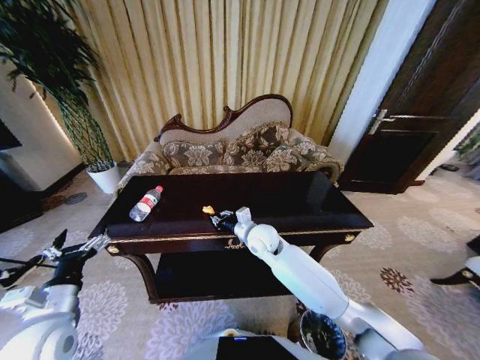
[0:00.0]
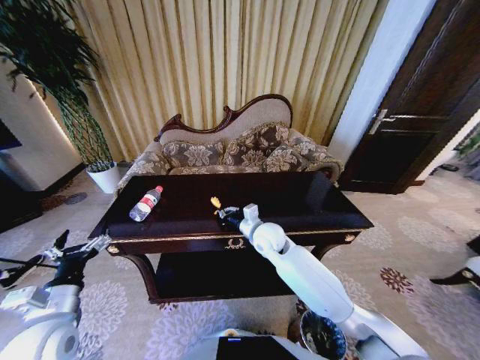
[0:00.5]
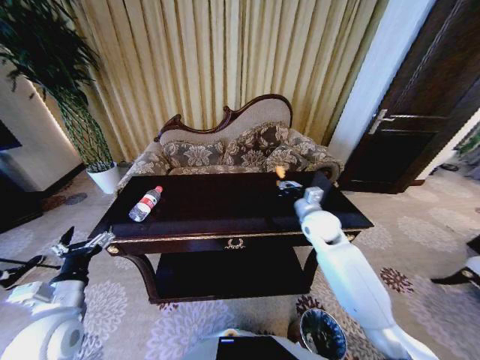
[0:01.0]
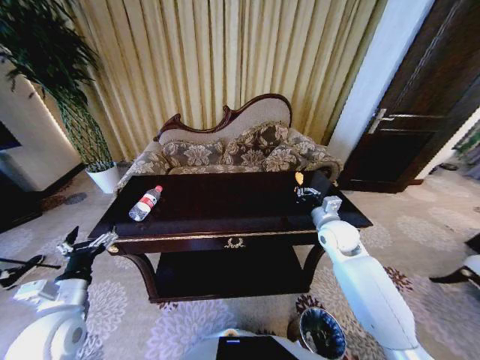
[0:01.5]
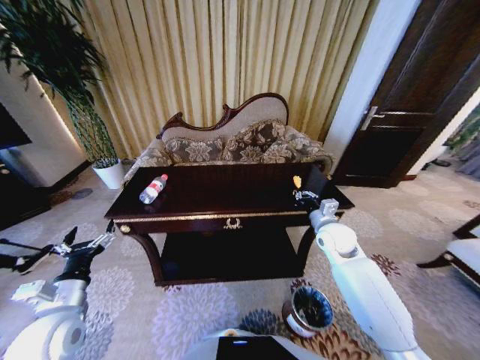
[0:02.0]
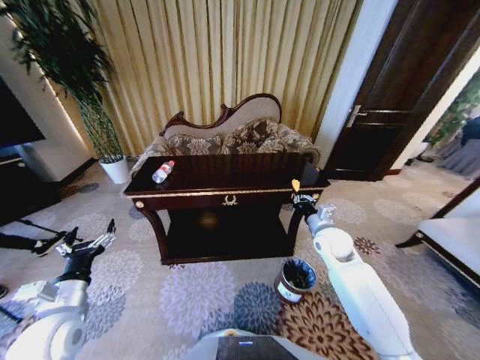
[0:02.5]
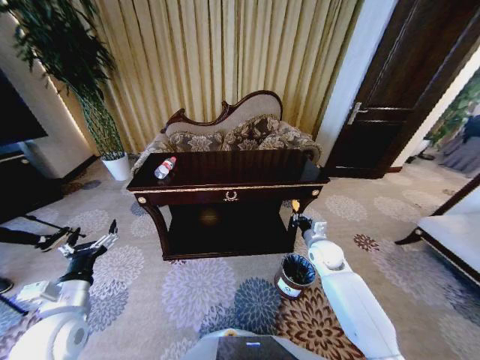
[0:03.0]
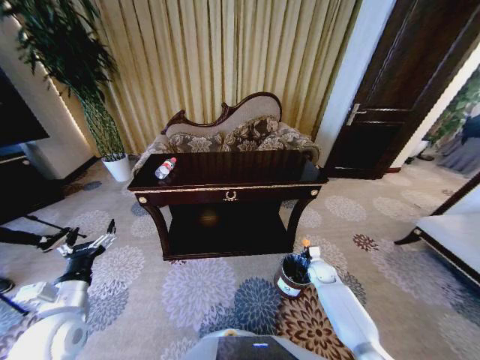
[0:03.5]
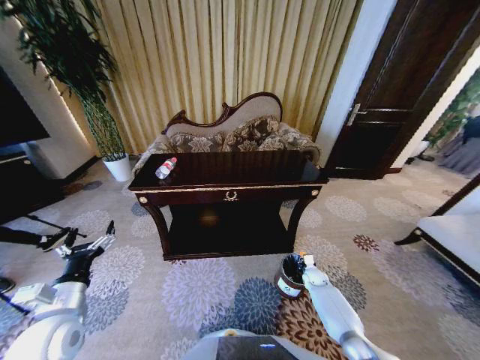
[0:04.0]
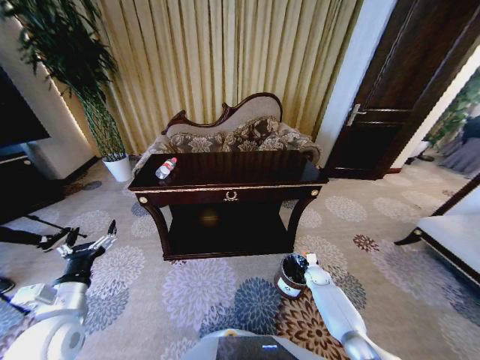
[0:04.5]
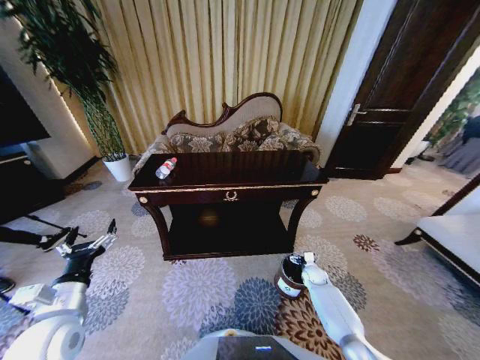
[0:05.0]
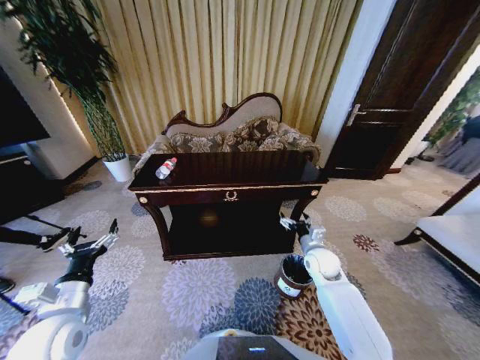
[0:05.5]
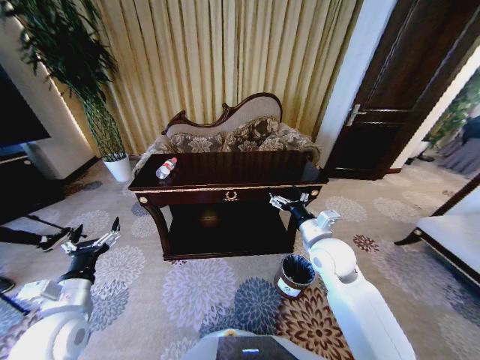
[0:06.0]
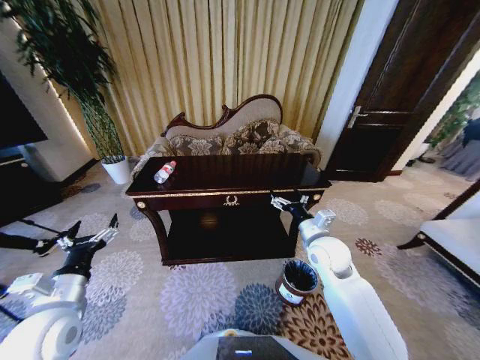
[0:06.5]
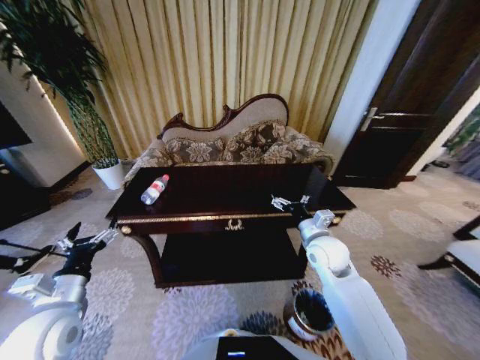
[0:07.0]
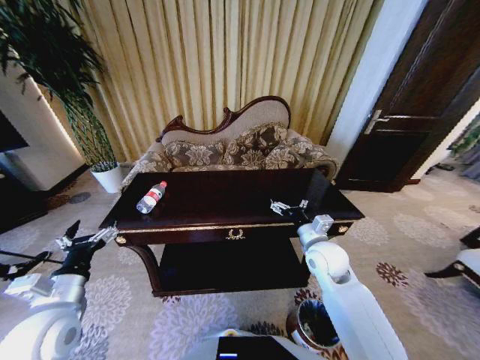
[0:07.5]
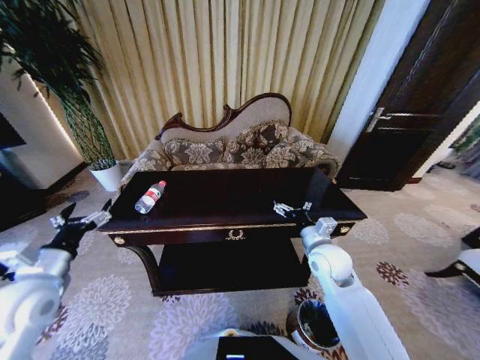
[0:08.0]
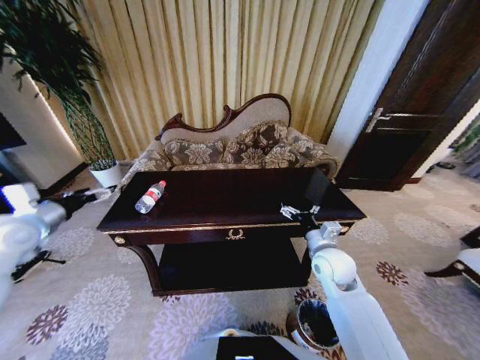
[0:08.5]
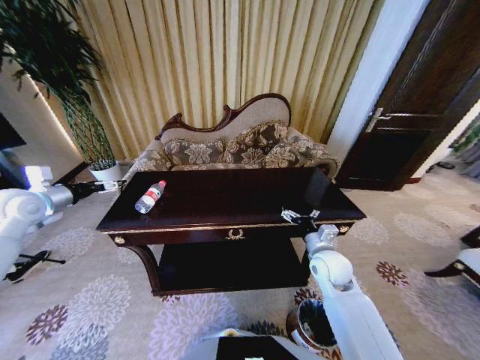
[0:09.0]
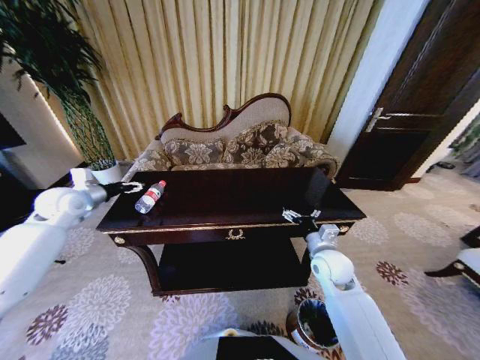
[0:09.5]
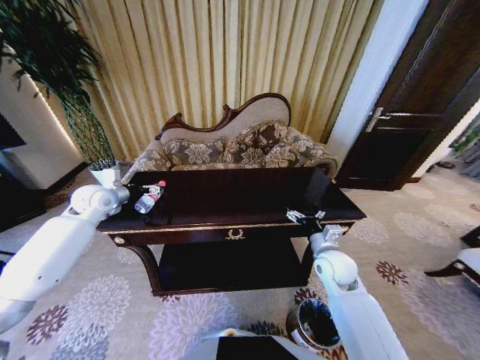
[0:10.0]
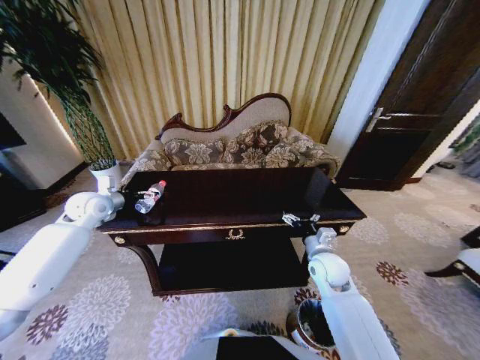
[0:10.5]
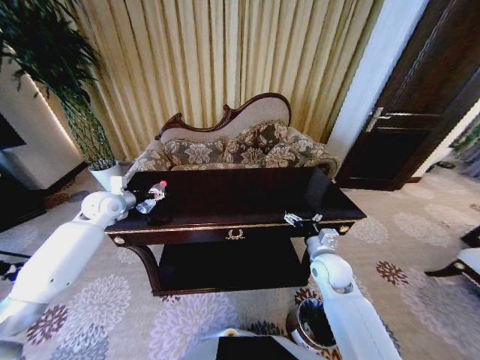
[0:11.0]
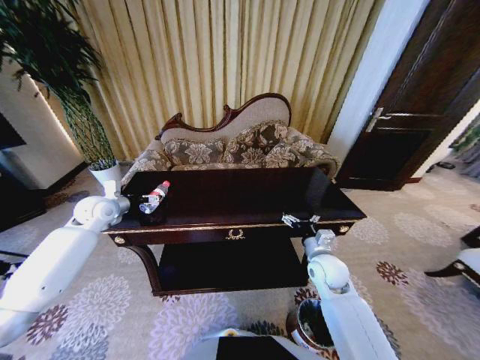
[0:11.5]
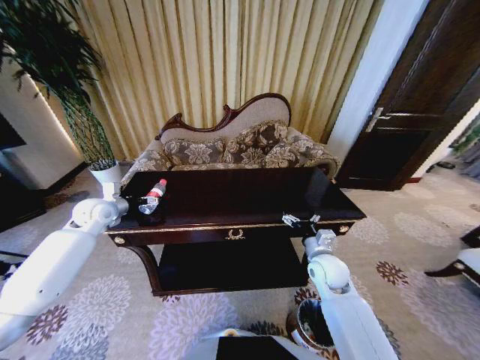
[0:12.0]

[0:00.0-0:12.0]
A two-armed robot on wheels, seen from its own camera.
Task of the whole recording: Move to the front of the table and place the trash on the table into the trash bin.
0:00.0 to 0:02.0: The right gripper travels to the right by about 20 cm.
0:02.0 to 0:04.0: The right gripper goes about 30 cm downward.
0:04.0 to 0:06.0: The right gripper is displaced upward by some 35 cm, and opens its fingers.
0:06.0 to 0:08.0: The left gripper is displaced to the left, upward and forward by approximately 10 cm.
0:08.0 to 0:10.0: The left gripper shifts about 25 cm forward.
0:10.0 to 0:12.0: The grippers make only small movements.

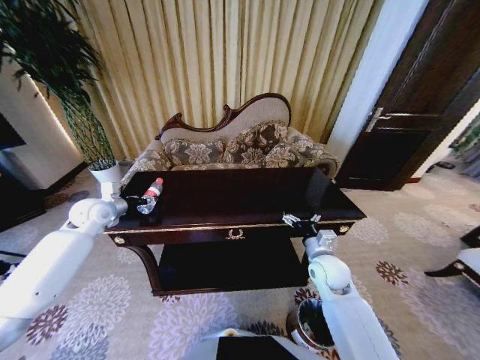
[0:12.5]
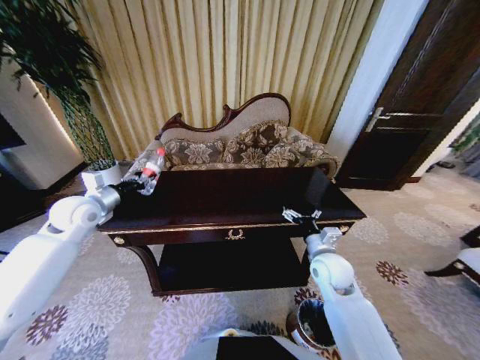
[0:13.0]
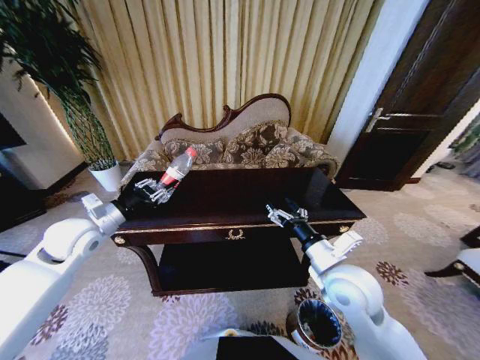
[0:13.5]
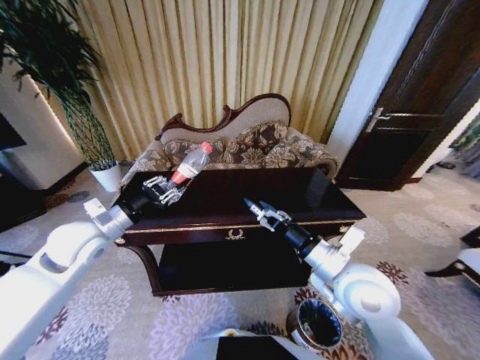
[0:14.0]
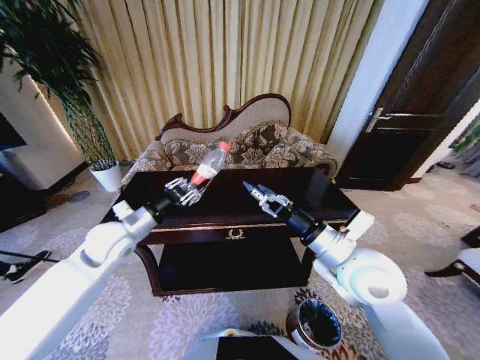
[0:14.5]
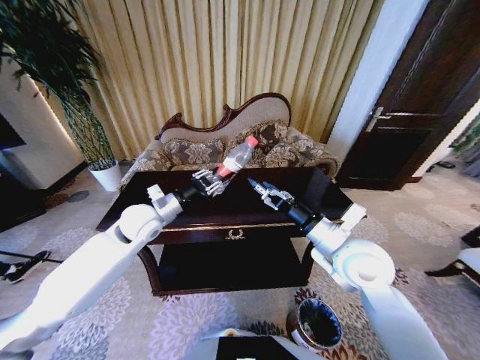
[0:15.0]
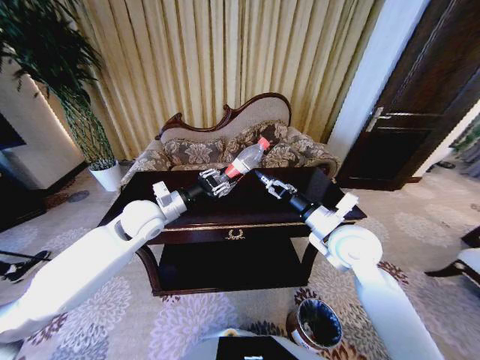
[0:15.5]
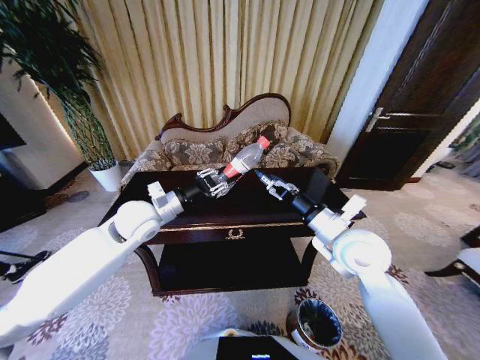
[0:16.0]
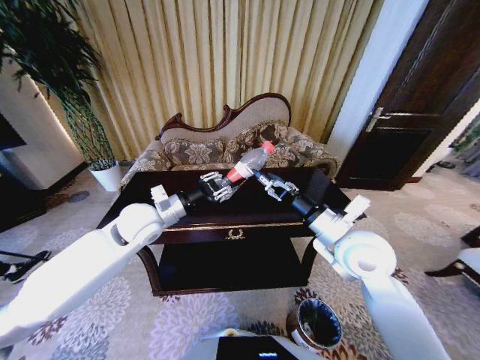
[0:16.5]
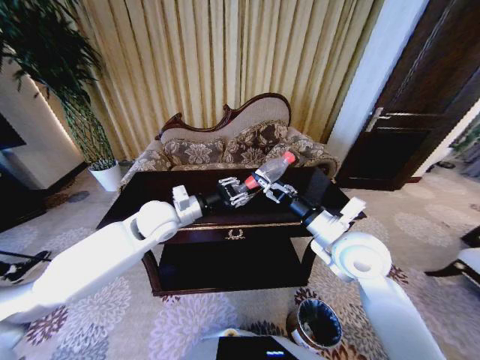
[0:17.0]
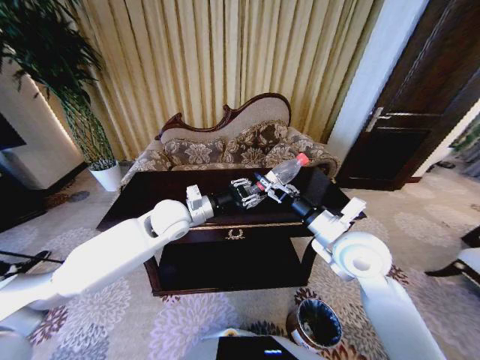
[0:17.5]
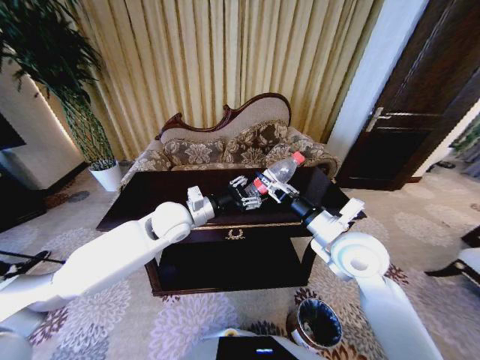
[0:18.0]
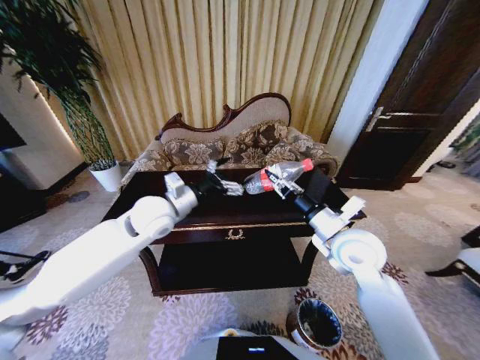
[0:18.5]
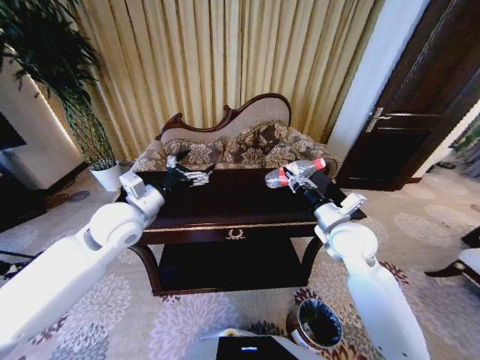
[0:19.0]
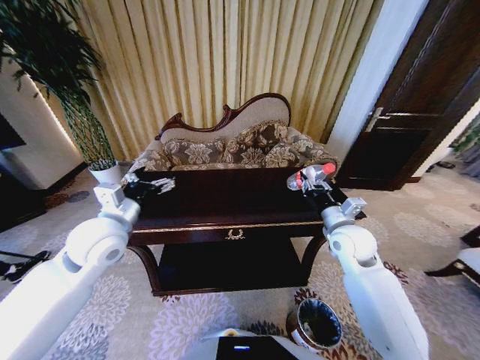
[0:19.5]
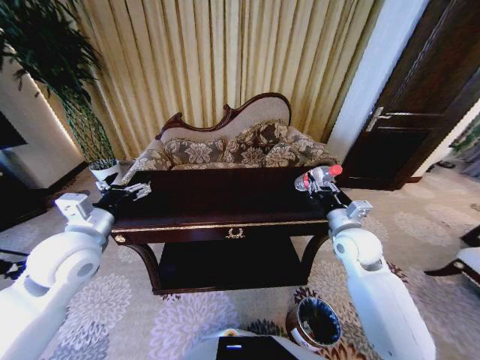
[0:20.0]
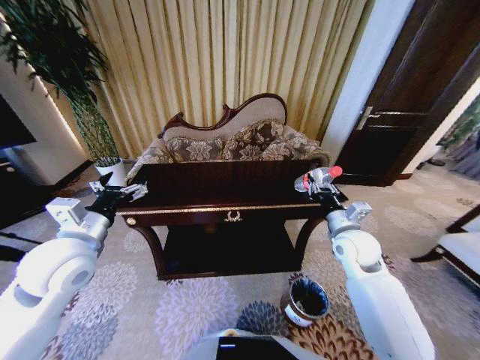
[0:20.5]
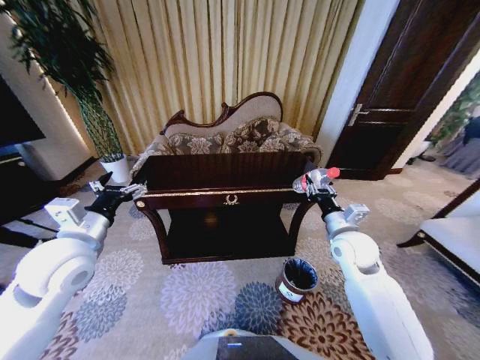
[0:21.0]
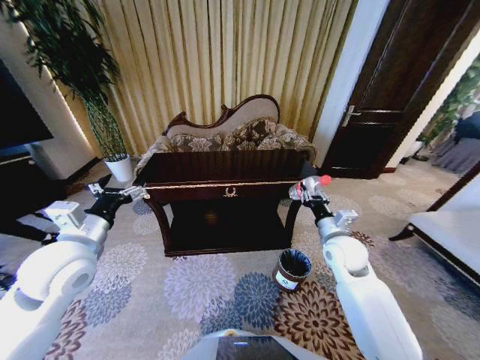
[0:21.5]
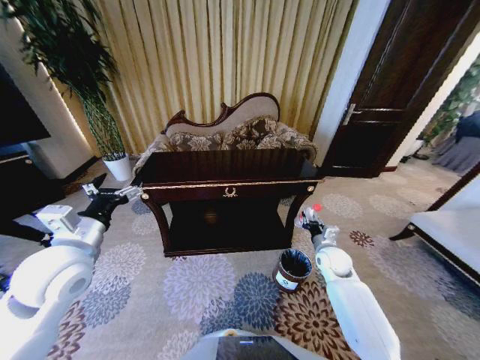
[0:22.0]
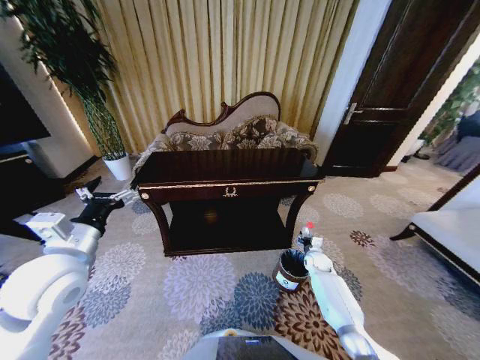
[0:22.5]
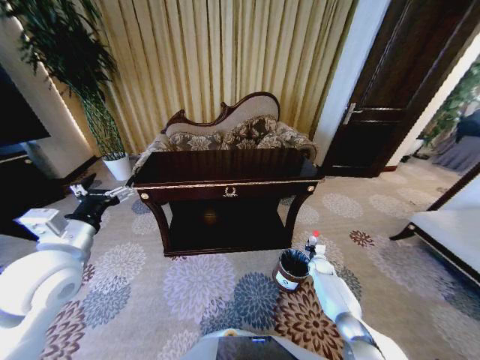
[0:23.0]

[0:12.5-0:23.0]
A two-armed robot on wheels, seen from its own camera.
Task of the whole recording: Move to the front of the table and place the trash on the table into the trash bin.
0:12.5 to 0:14.5: The left gripper shifts some 15 cm to the right and backward, and closes; the right gripper is displaced upward by approximately 20 cm.
0:14.5 to 0:16.5: The left gripper goes about 5 cm to the right.
0:16.5 to 0:19.0: The right gripper shifts roughly 10 cm forward and downward, and closes; the left gripper reaches roughly 5 cm to the right, then returns, and opens.
0:19.0 to 0:21.0: The left gripper heads backward and to the left, covering about 10 cm.
0:21.0 to 0:23.0: The right gripper goes about 35 cm downward.

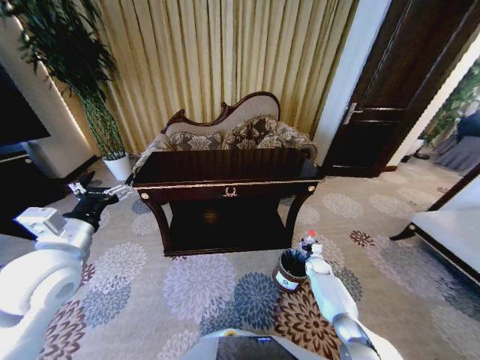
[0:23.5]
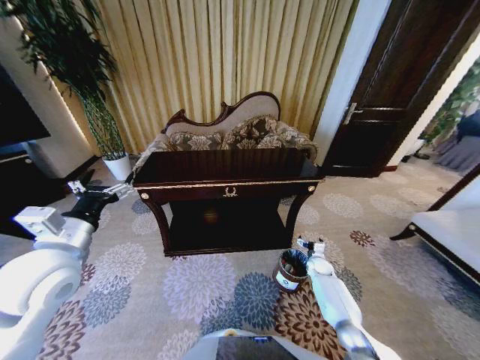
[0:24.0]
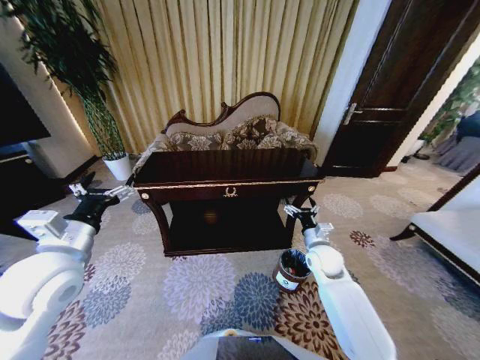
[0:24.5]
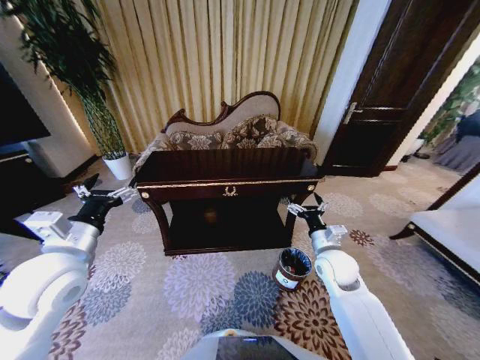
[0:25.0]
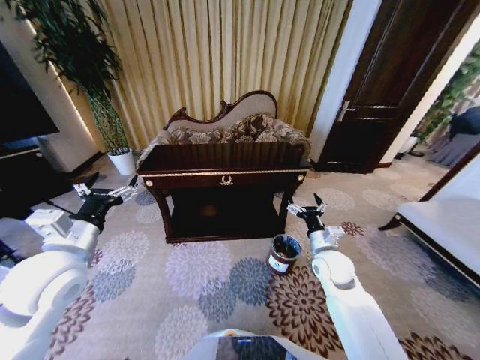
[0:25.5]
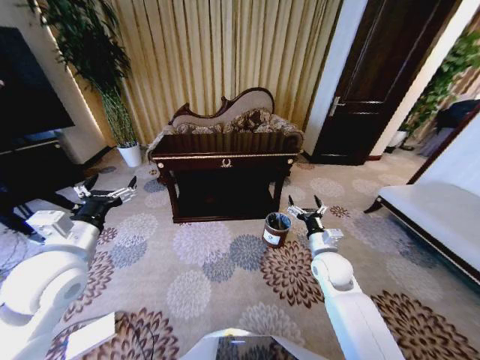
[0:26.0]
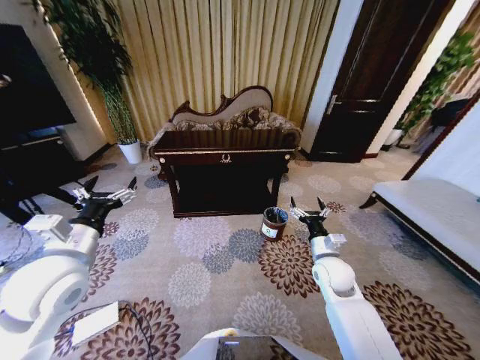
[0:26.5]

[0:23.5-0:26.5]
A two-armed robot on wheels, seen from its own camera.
Task of the whole recording: Move to the front of the table and place the trash on the table into the trash bin.
0:23.5 to 0:25.0: The right gripper goes some 25 cm upward, and opens up.
